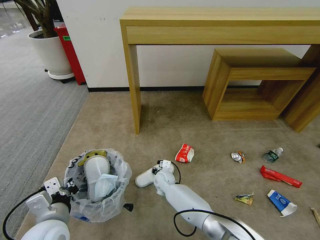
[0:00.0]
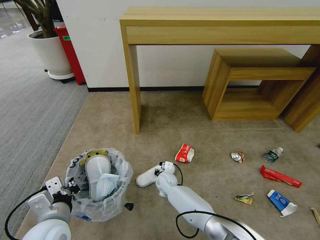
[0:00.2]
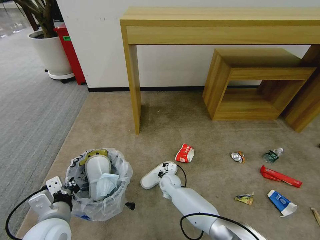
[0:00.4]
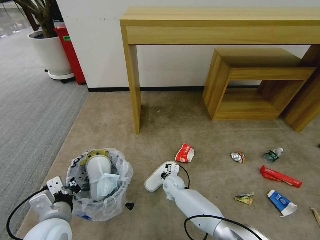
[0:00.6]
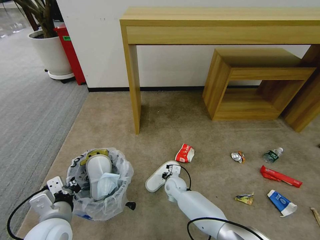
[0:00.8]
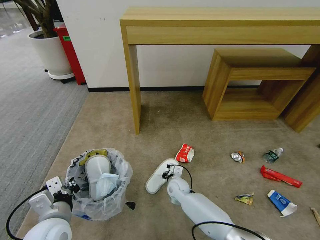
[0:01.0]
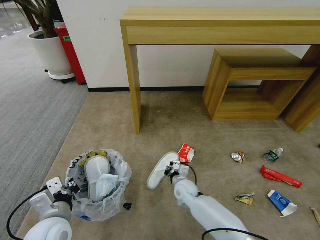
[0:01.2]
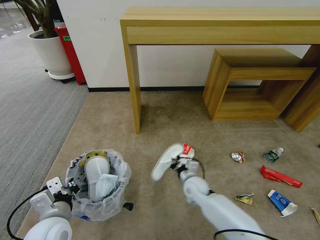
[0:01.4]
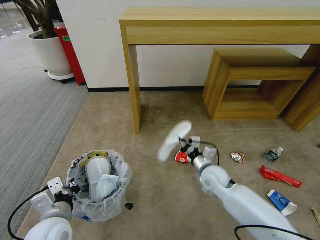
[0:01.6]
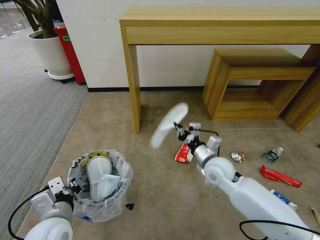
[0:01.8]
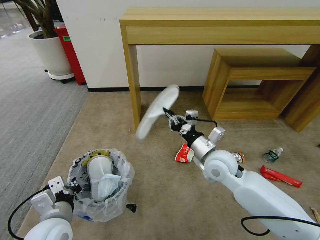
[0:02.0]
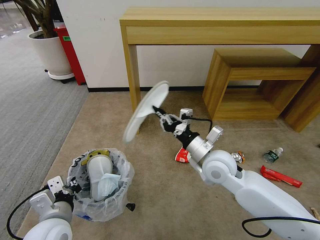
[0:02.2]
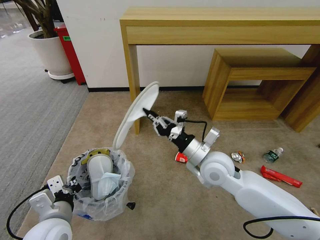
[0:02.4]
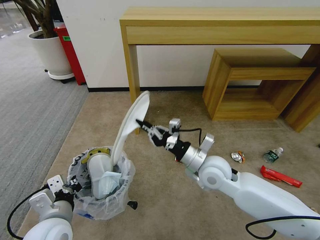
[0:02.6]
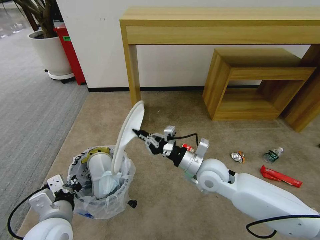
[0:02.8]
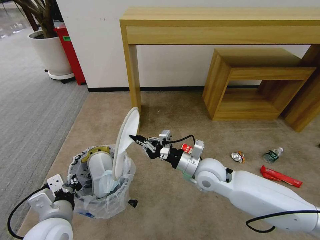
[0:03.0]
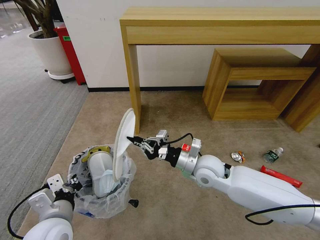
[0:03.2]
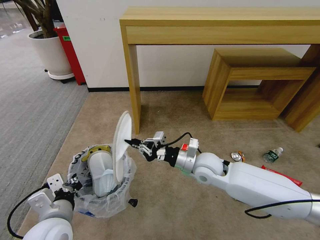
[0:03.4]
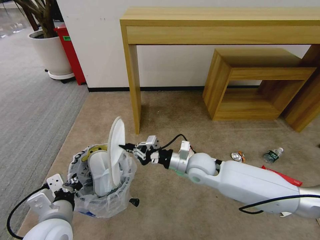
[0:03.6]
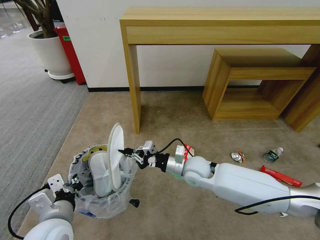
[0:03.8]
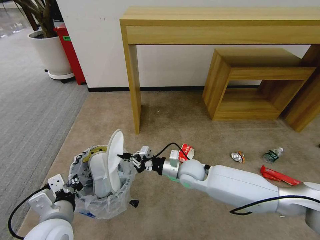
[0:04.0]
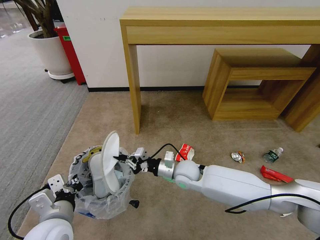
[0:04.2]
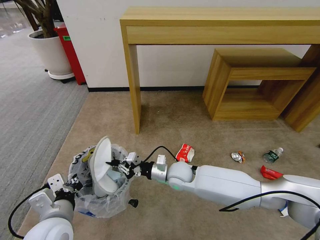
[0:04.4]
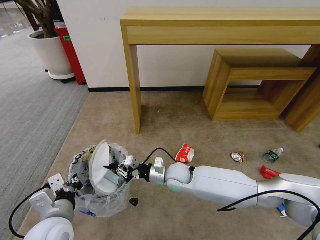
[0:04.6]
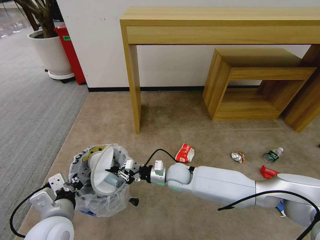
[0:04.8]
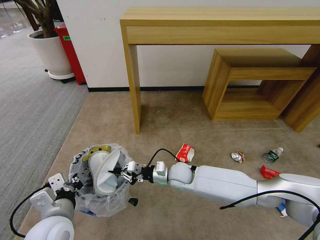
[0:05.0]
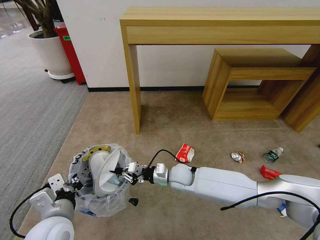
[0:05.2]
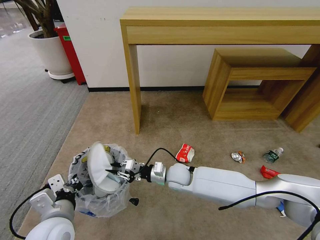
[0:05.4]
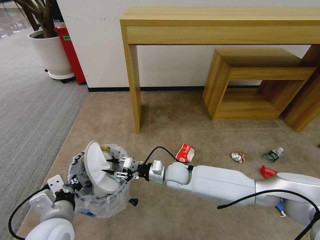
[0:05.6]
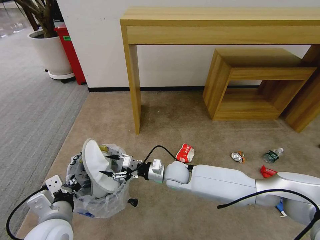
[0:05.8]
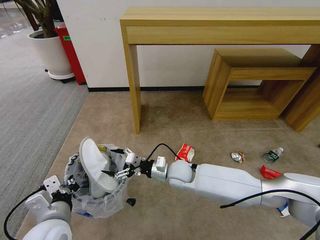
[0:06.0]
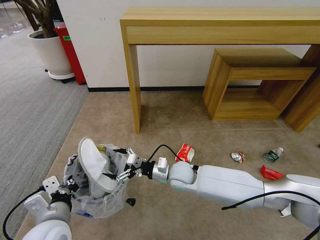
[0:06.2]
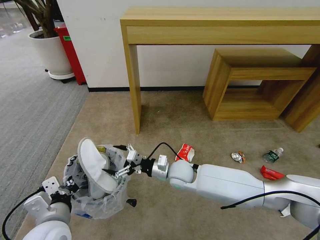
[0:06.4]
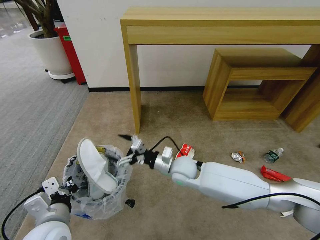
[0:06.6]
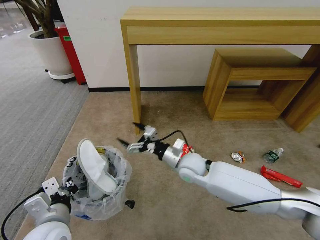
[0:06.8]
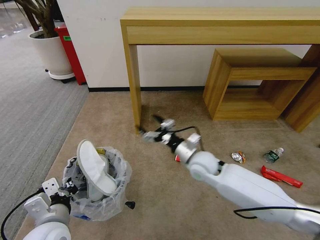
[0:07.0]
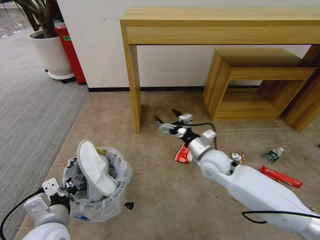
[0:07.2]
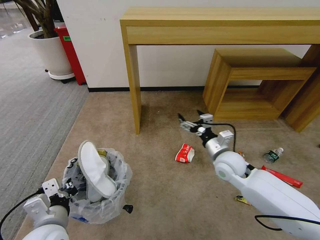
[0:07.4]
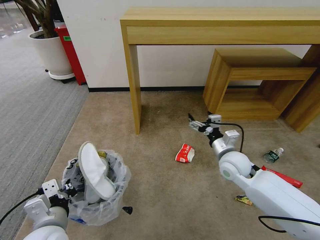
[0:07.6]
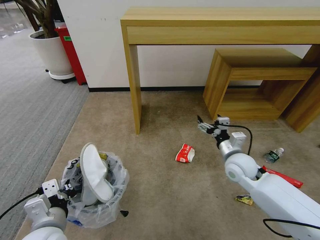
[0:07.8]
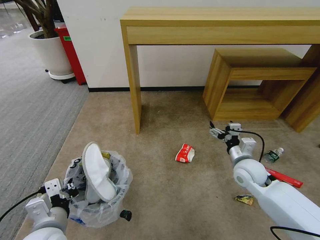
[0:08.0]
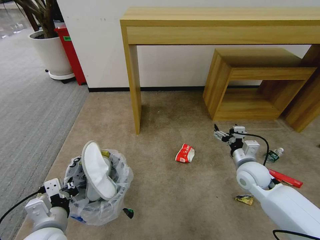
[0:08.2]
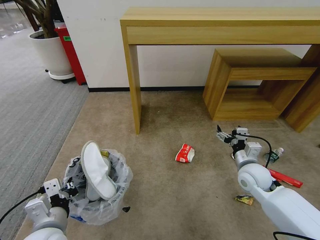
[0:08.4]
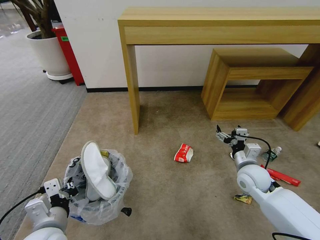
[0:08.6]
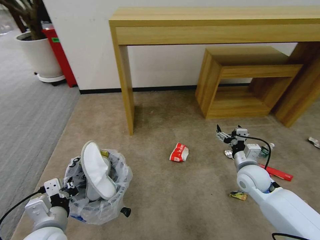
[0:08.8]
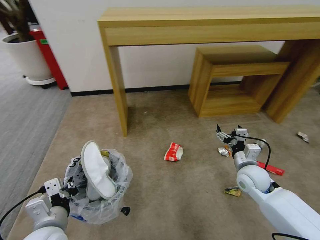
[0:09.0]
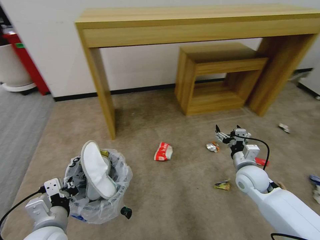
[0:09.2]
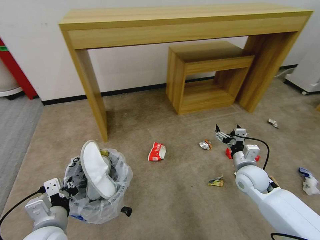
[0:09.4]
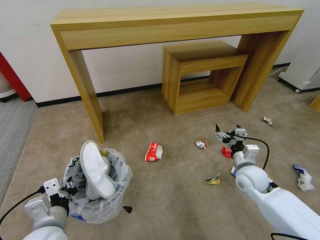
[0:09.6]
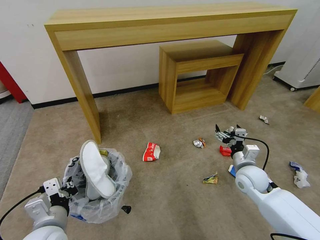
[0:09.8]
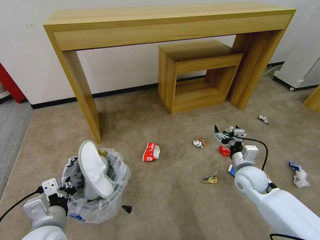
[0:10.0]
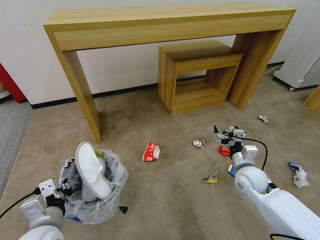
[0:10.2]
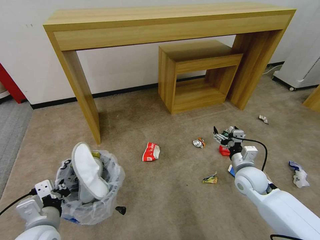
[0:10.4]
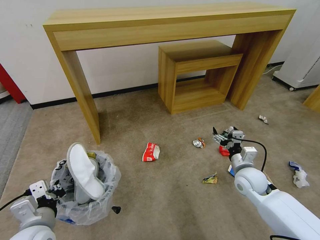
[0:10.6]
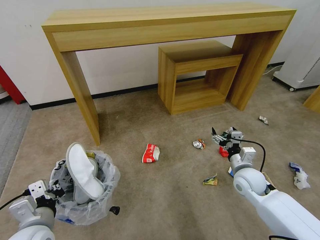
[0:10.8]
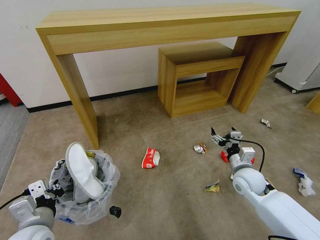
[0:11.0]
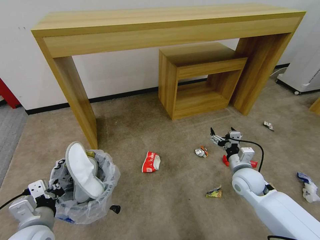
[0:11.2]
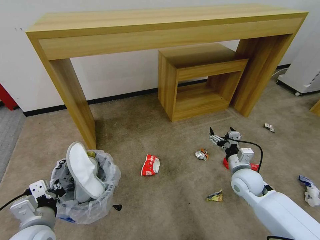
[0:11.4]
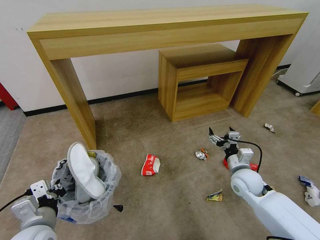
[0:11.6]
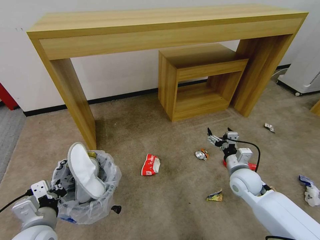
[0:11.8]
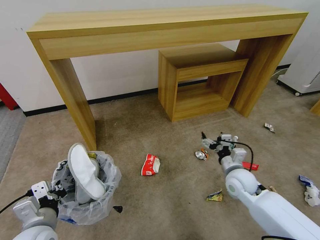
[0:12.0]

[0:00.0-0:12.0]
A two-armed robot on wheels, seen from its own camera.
Task of the whole recording: Pick up the trash bin and place the garbage on the floor into it.
0:00.0 to 0:01.6: The right gripper goes about 20 cm to the right and upward, and closes.
0:01.6 to 0:03.0: The right gripper is displaced upward by some 10 cm.
0:03.0 to 0:04.4: The right gripper shifts roughly 10 cm downward and to the left.
0:04.4 to 0:06.0: The right gripper opens.
0:06.0 to 0:07.6: The right gripper goes about 15 cm to the right.
0:07.6 to 0:09.0: The right gripper moves to the right, about 10 cm.

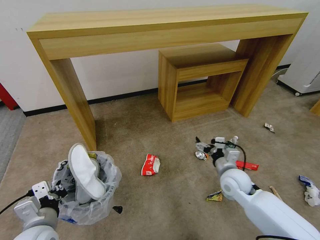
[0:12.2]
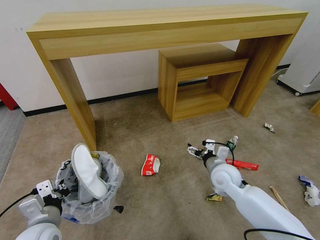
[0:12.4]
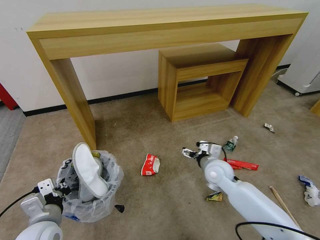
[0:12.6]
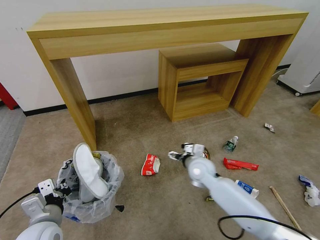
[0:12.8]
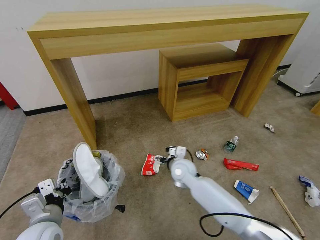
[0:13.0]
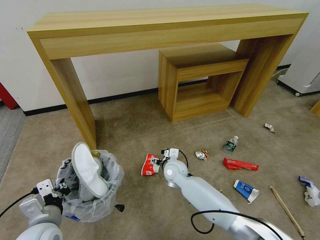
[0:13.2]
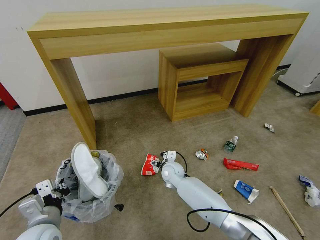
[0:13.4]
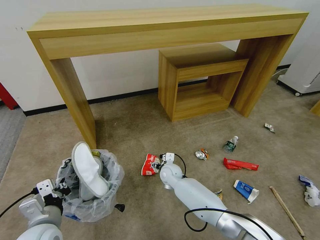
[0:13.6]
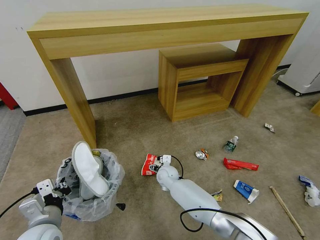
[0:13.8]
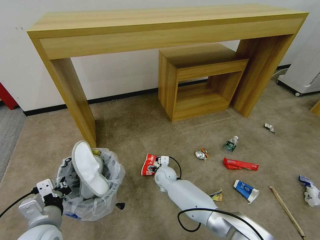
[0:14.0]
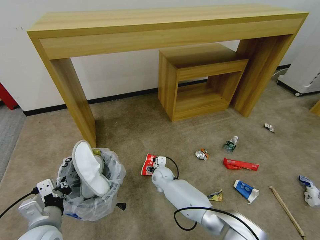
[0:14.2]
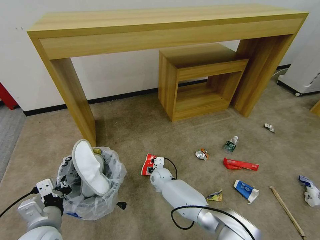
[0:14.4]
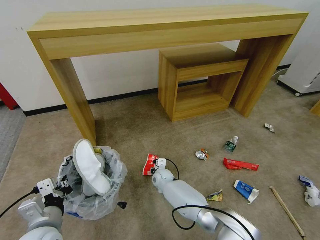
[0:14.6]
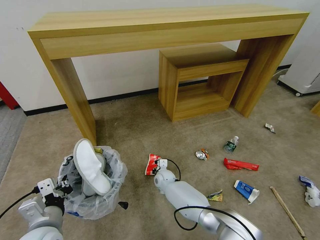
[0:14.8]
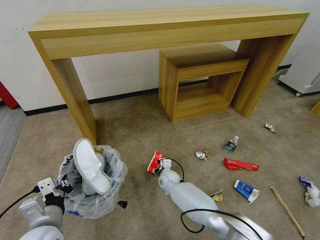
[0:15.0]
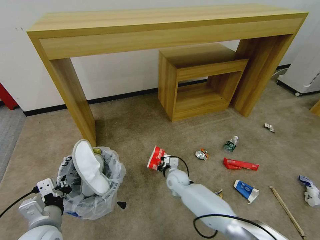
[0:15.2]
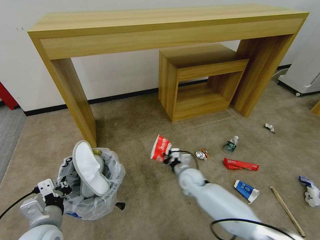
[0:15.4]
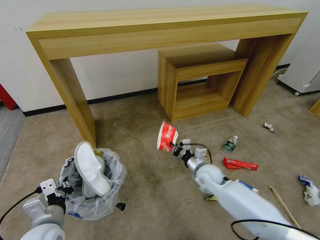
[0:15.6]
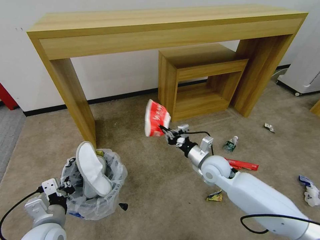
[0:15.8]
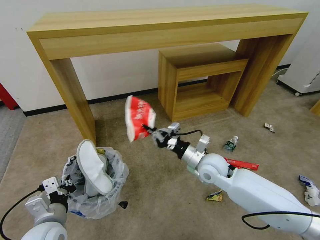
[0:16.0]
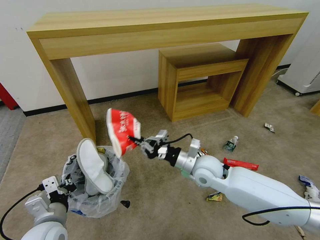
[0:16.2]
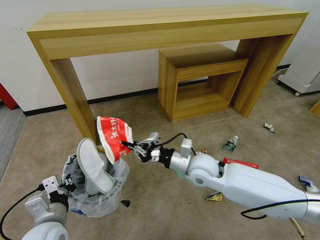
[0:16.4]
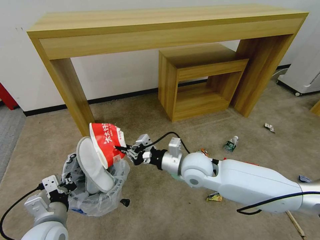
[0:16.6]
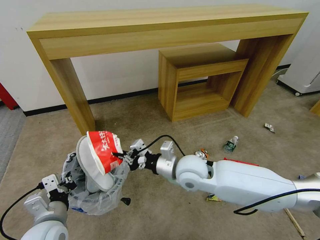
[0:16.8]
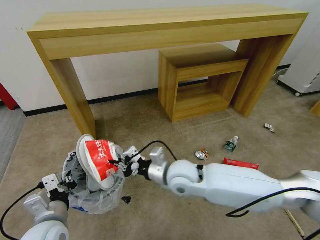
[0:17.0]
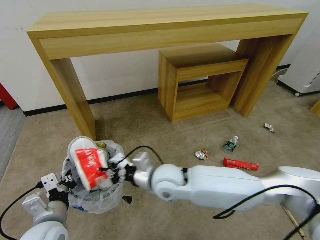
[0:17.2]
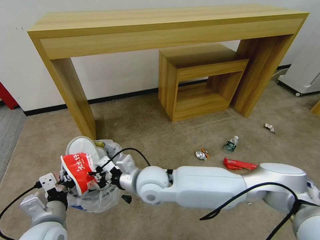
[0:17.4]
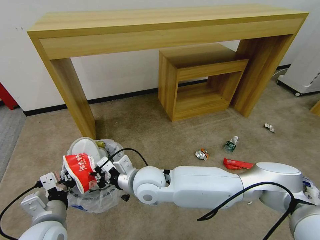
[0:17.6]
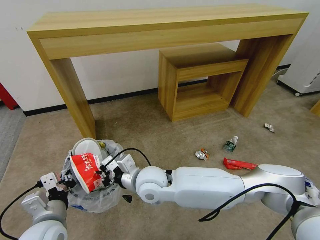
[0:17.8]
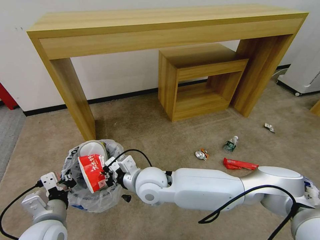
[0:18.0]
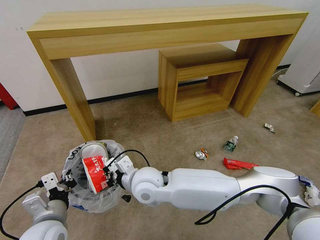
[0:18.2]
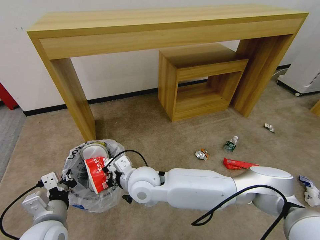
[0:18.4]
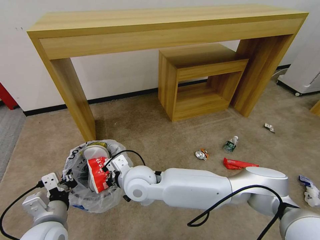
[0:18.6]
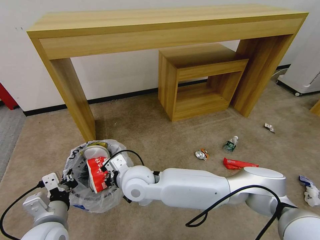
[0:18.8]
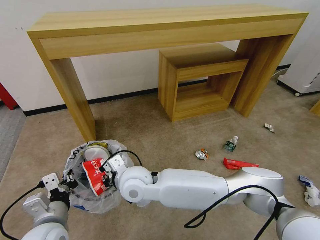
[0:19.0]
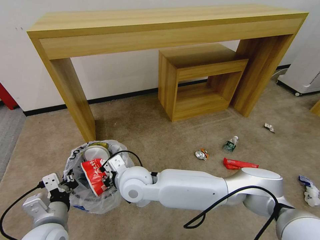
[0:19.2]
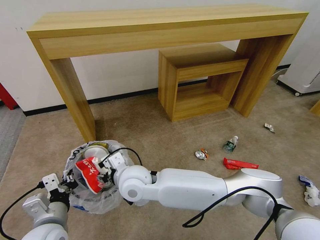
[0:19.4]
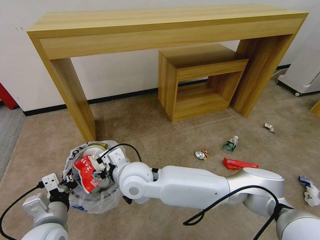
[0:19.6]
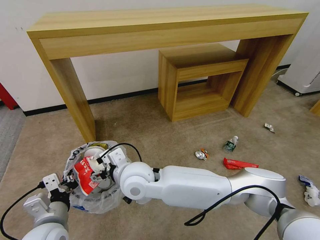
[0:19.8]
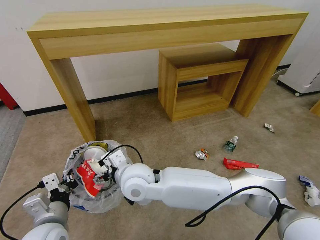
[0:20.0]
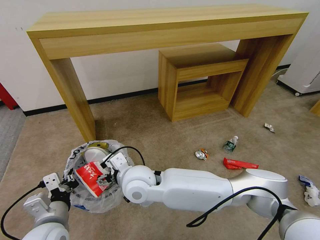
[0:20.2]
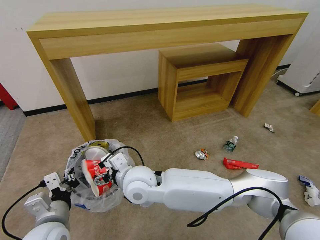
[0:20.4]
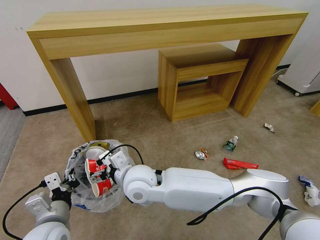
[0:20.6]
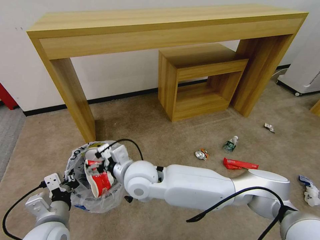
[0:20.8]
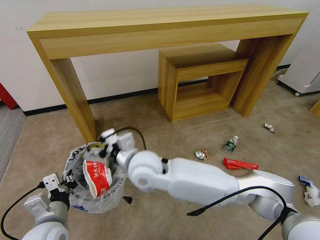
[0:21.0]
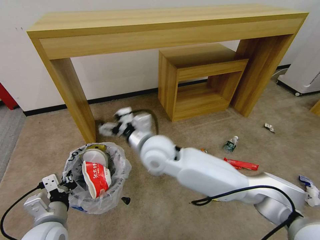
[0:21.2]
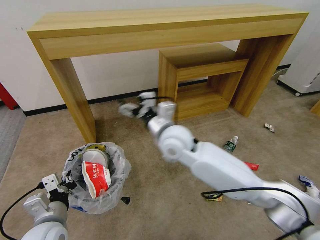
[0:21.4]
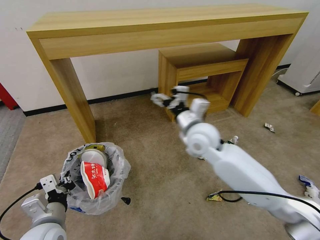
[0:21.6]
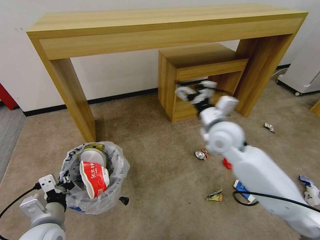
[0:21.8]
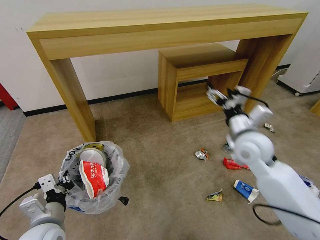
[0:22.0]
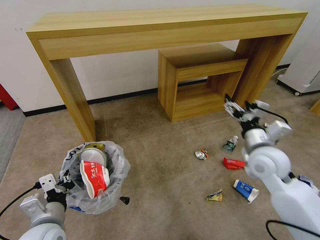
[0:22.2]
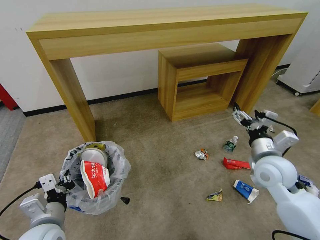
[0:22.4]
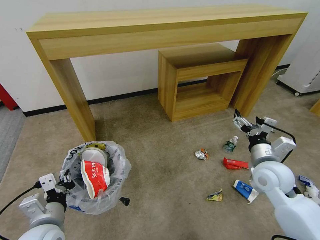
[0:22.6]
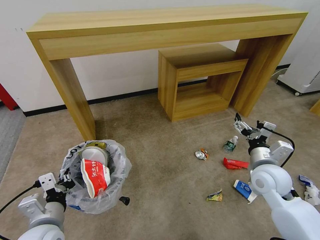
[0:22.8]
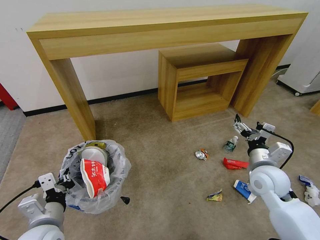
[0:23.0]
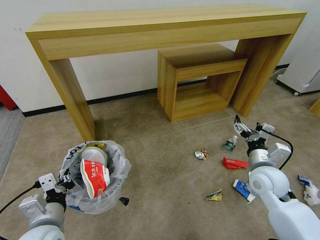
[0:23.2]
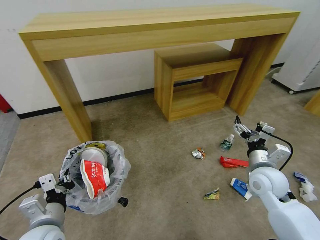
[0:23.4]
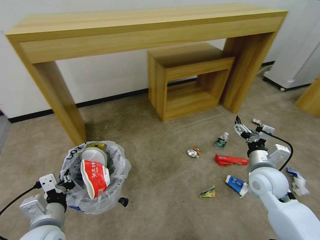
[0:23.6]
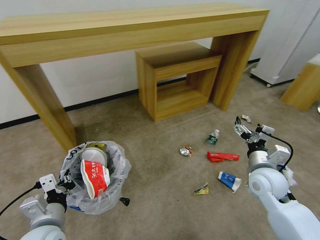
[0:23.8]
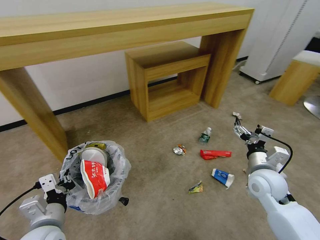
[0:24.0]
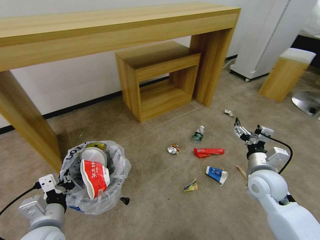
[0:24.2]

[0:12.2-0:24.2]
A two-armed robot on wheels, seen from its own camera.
Task of the whole recording: Pick up the trash bin and place the garbage on the floor into it.
0:12.2 to 0:13.8: The right gripper is displaced to the left, downward and forward by approximately 25 cm.
0:13.8 to 0:15.2: The right gripper closes its fingers.
0:15.2 to 0:16.6: The right gripper goes about 25 cm upward.
0:16.6 to 0:18.2: The right gripper shifts about 15 cm to the left.
0:18.2 to 0:19.8: The right gripper opens.
0:19.8 to 0:21.2: The right gripper changes place by some 10 cm.
0:21.2 to 0:22.6: The right gripper heads to the right, covering about 35 cm.
